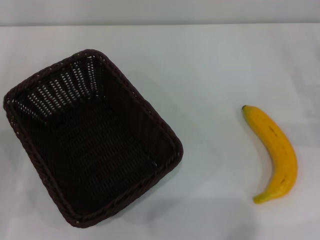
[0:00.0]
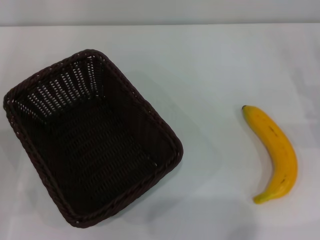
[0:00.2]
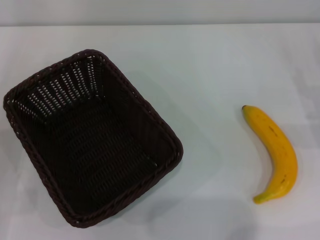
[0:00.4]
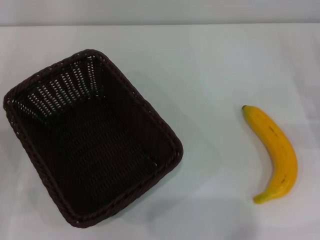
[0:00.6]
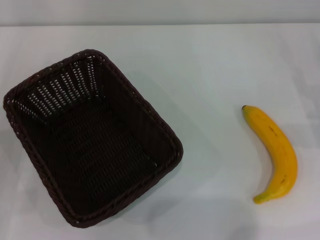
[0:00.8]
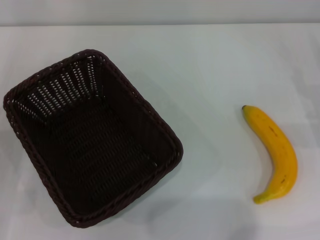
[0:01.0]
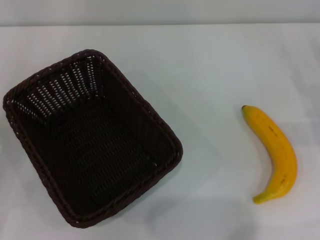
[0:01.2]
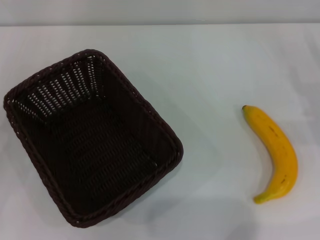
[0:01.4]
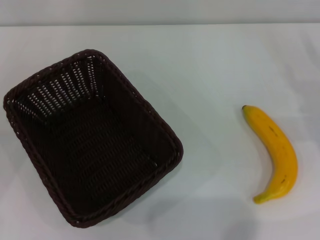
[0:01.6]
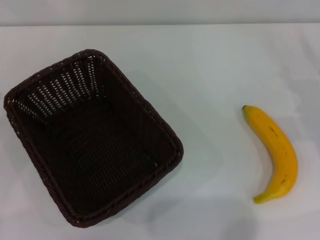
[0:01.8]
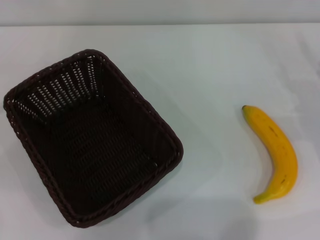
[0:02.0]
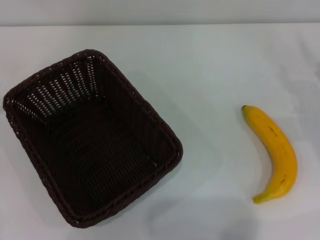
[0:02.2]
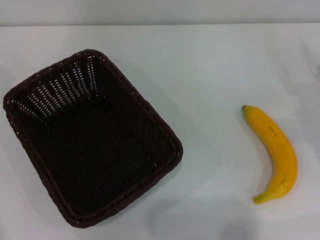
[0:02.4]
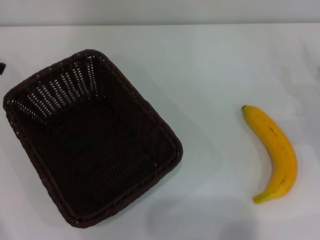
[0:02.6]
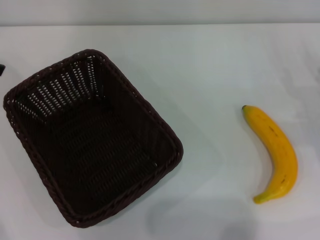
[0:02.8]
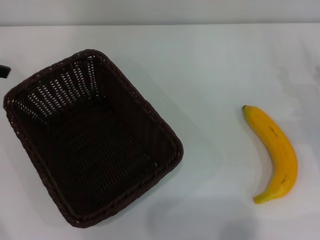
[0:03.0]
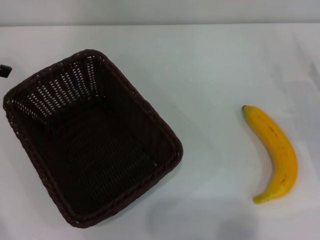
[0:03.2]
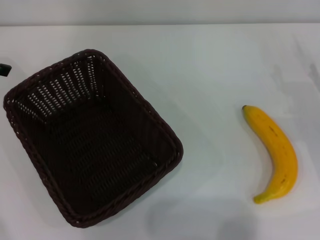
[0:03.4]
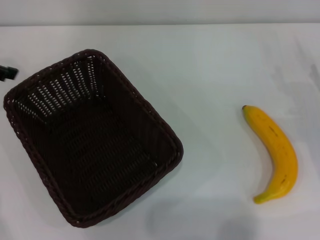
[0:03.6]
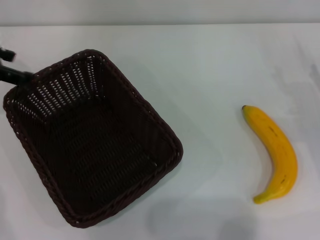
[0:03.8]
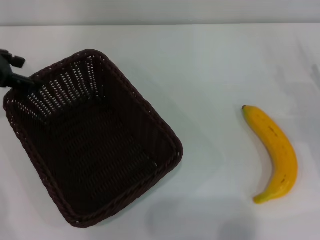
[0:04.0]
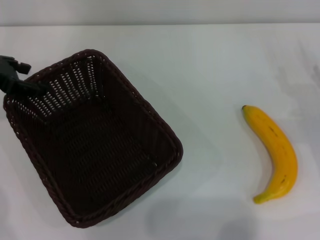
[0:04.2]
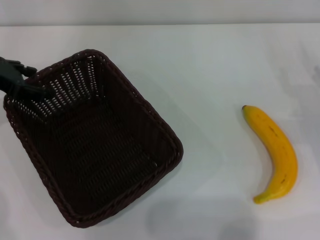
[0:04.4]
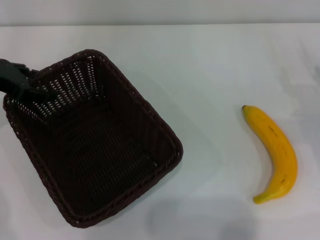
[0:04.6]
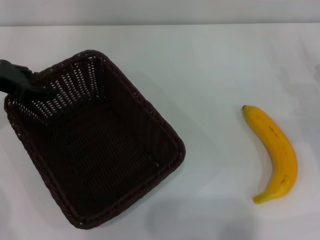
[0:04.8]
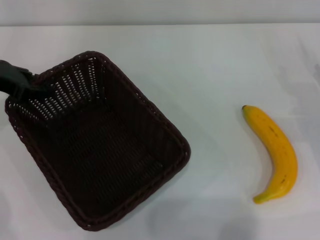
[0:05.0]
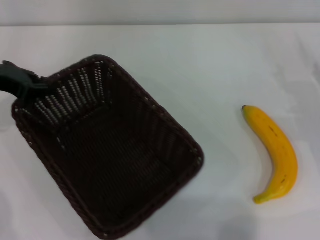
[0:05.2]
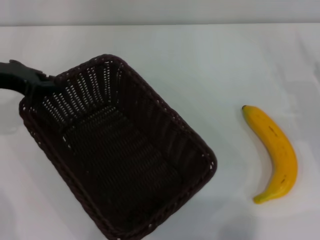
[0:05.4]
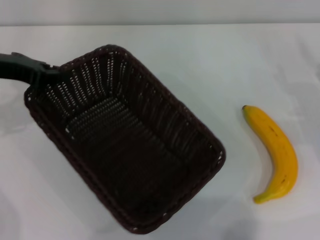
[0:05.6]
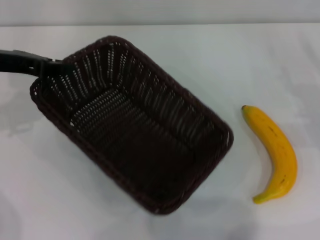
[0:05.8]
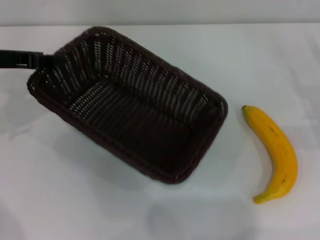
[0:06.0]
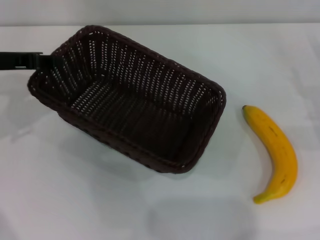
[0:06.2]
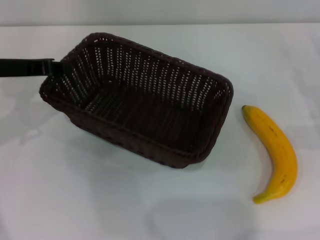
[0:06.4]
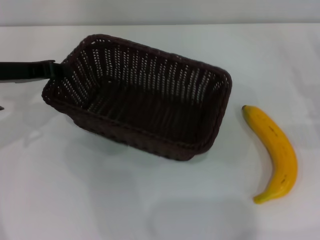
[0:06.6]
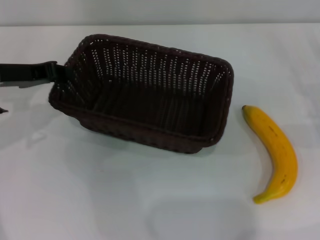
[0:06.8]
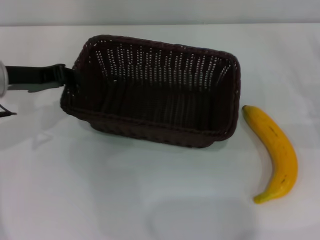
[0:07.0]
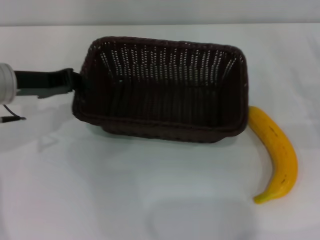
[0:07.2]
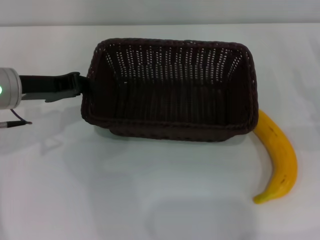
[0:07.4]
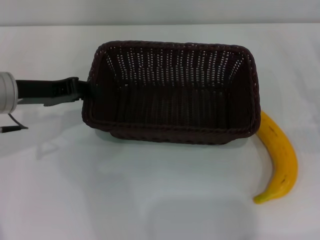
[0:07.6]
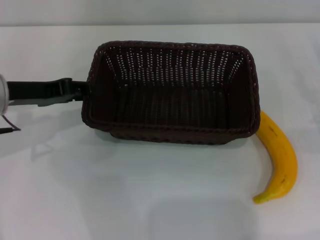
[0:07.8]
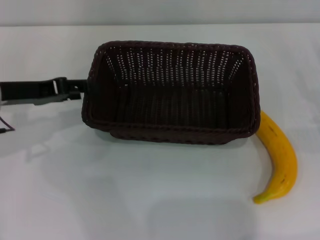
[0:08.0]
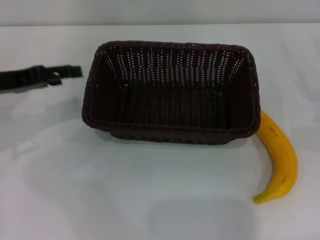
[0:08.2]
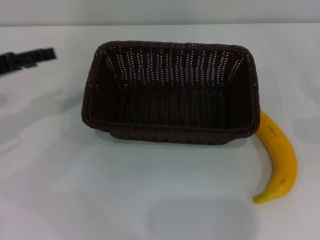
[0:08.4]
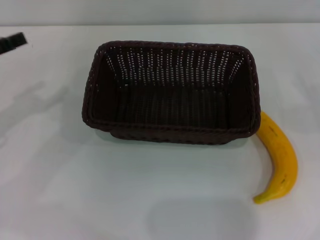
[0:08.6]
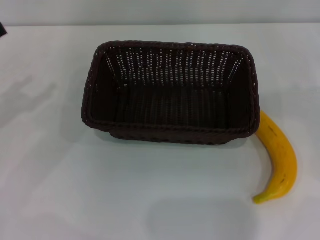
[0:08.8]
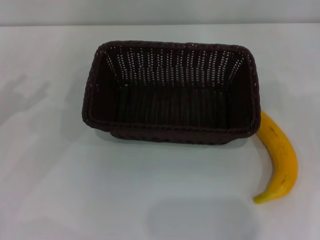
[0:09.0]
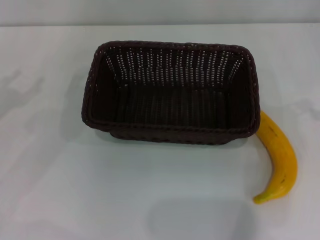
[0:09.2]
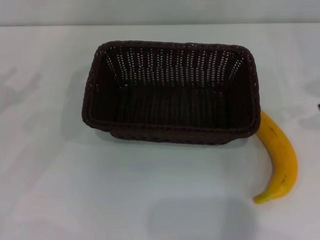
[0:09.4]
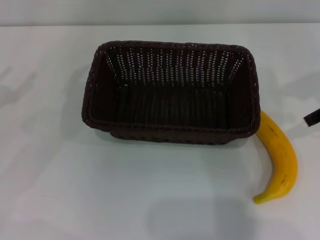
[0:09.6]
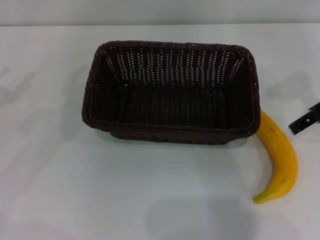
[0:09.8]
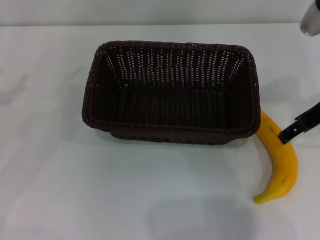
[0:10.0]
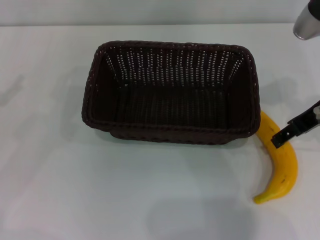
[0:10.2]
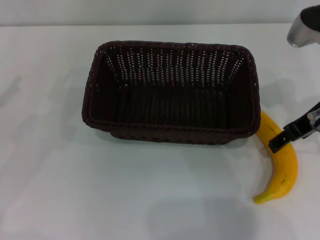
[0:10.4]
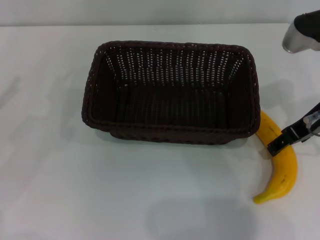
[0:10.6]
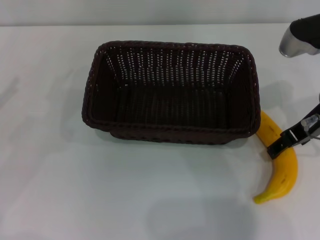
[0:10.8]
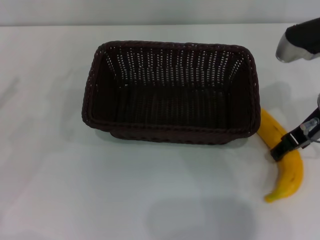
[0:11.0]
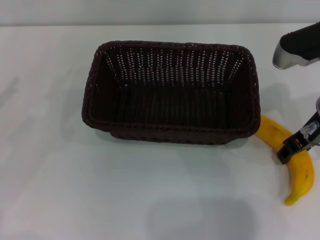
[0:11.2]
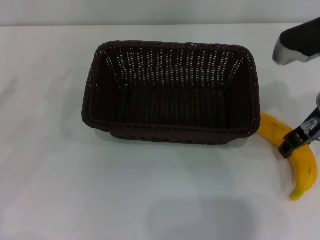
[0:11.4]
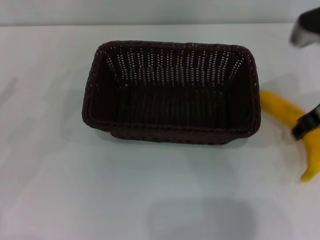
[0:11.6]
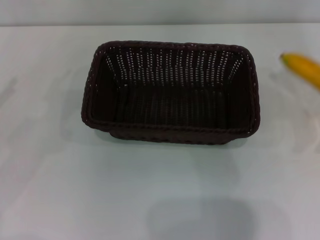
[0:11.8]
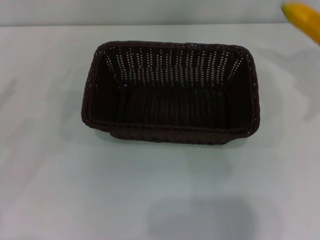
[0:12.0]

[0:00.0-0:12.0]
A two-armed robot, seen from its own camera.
Step, 0.0 to 5.2 s: Pick up the dark basket with the left gripper.
Step, 5.6 to 8.0 s: Place the dark basket in the center of view with the left gripper.
Step, 8.2 to 11.8 s: Pick up the banana with the right gripper.
3.0 to 4.4 s: The left gripper is displaced downward by about 5 cm.
4.4 to 6.0 s: The left gripper closes its fingers.
6.0 to 7.6 s: The left gripper ends up about 5 cm from where it was.
7.6 to 9.0 s: The left gripper moves to the left, roughly 10 cm, and opens.
9.0 to 10.4 s: The right gripper moves to the left, roughly 15 cm.
10.4 to 12.0 s: The right gripper heads upward and to the right, covering about 10 cm, and closes its fingers.

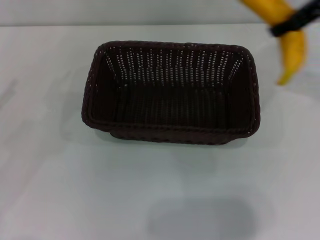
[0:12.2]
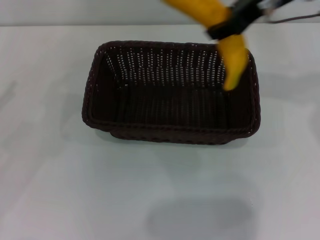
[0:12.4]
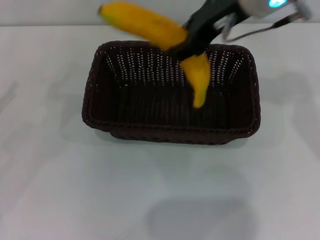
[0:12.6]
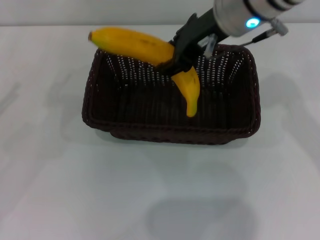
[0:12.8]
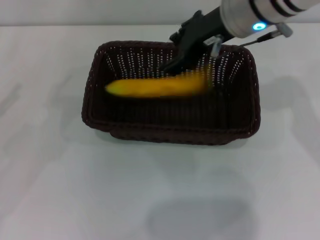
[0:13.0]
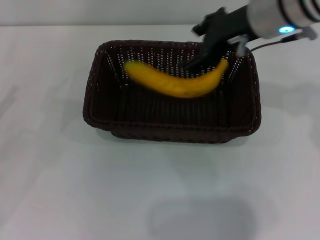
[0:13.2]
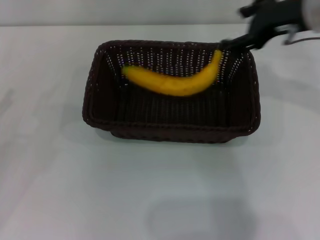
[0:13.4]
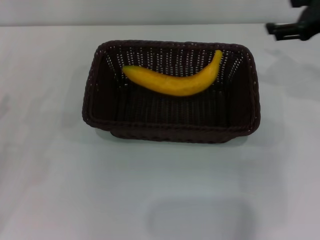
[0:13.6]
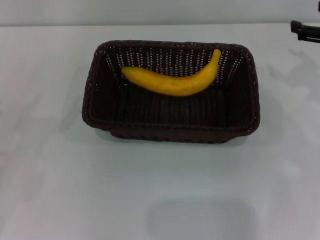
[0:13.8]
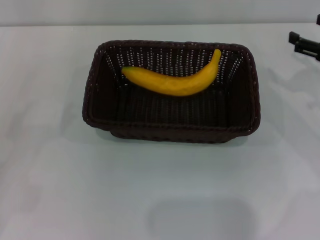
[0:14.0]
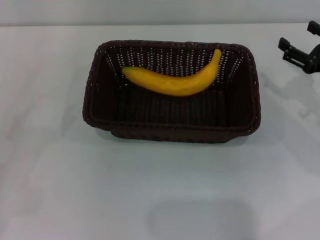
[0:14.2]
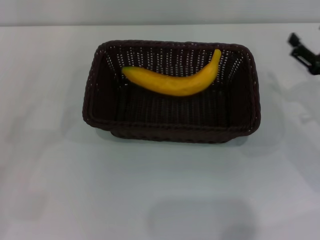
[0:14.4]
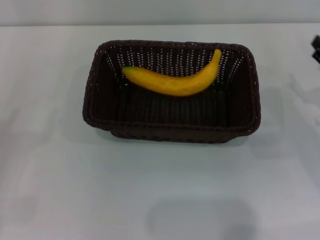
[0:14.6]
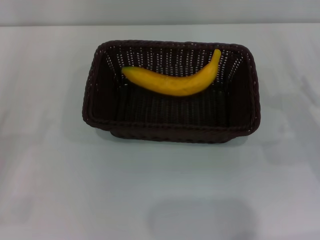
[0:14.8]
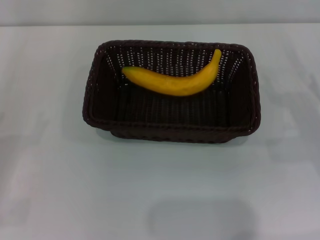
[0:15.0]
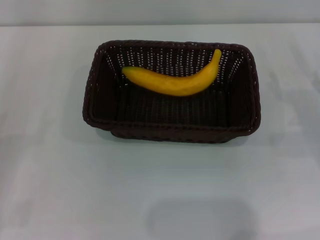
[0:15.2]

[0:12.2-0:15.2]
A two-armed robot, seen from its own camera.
Step, 12.2 to 13.2 s: Place the banana into the dark basket with the right gripper.
12.2 to 13.8 s: The left gripper goes some 10 cm downward and backward. Meanwhile the right gripper moves downward and to the right, about 15 cm, and opens its fingers.
13.8 to 15.2 s: The right gripper shifts about 15 cm downward and backward.

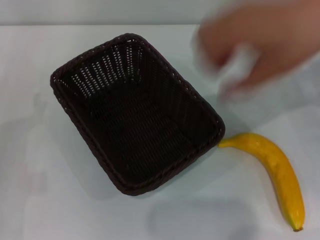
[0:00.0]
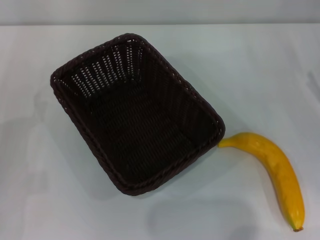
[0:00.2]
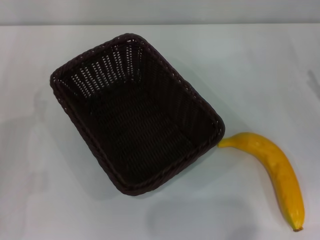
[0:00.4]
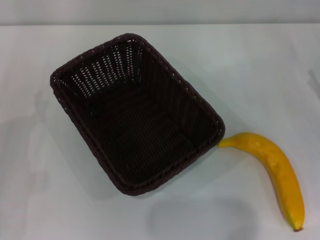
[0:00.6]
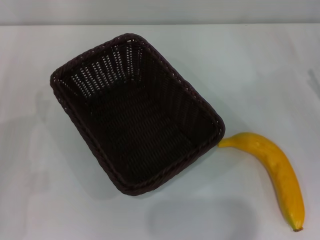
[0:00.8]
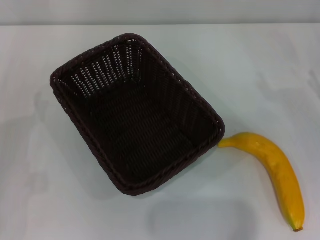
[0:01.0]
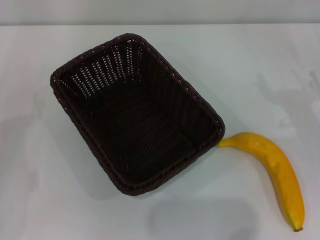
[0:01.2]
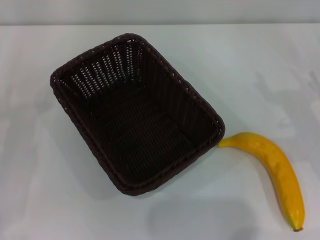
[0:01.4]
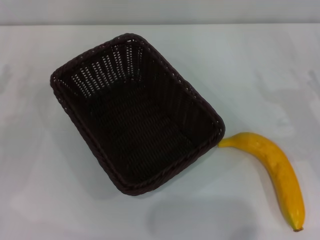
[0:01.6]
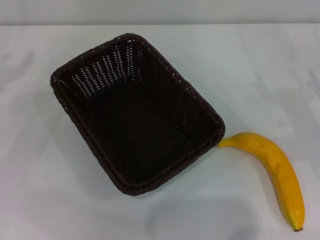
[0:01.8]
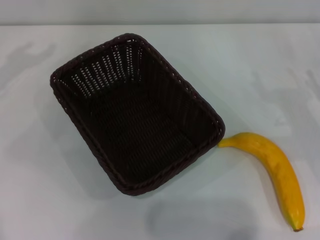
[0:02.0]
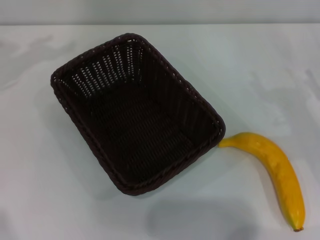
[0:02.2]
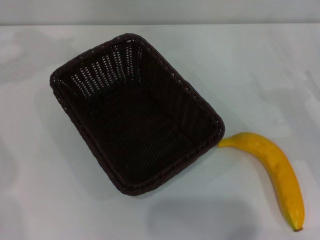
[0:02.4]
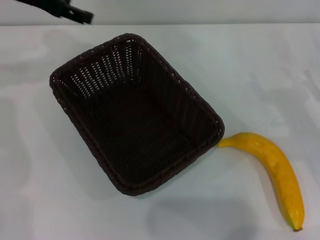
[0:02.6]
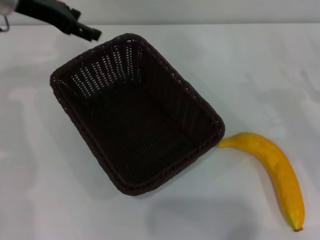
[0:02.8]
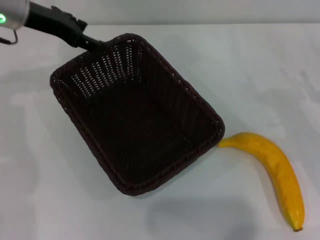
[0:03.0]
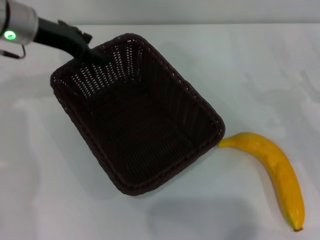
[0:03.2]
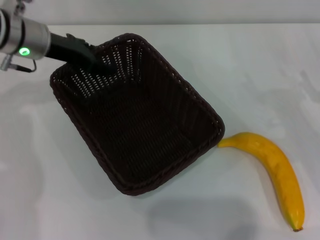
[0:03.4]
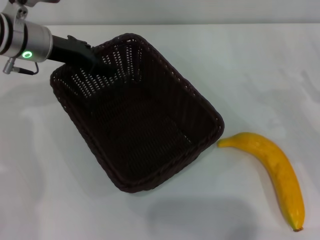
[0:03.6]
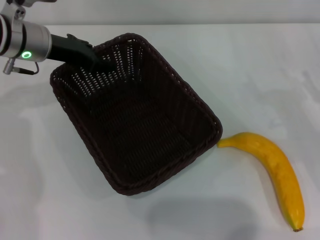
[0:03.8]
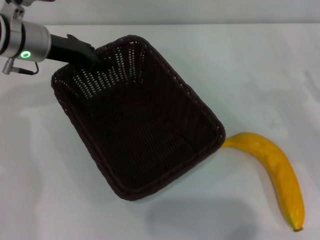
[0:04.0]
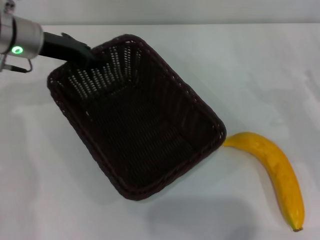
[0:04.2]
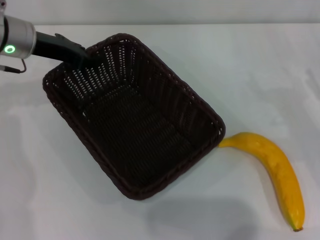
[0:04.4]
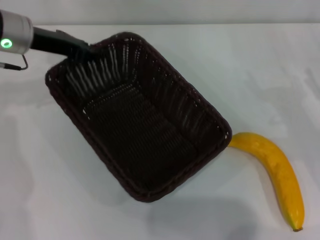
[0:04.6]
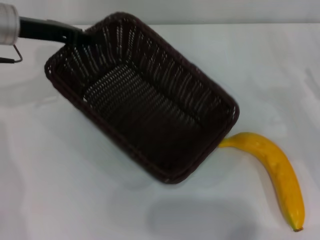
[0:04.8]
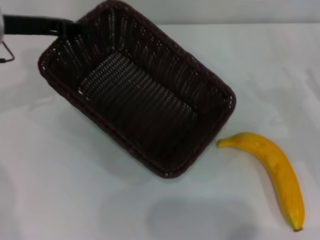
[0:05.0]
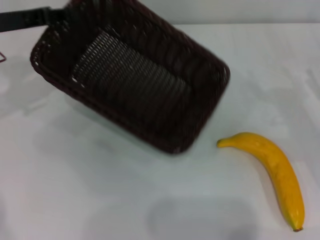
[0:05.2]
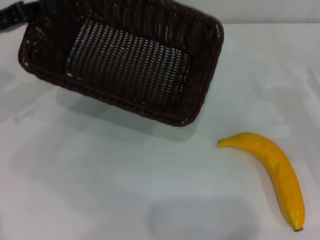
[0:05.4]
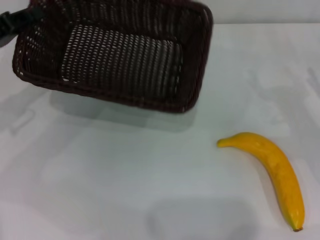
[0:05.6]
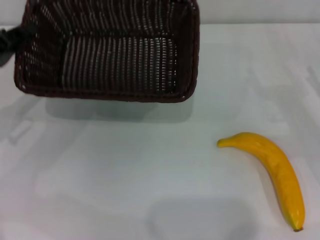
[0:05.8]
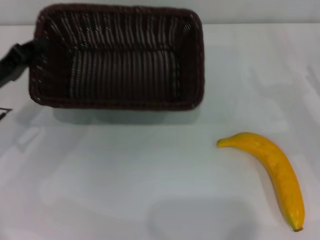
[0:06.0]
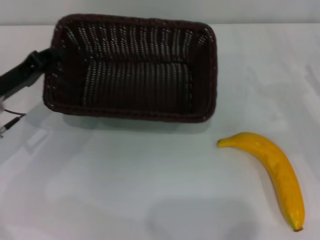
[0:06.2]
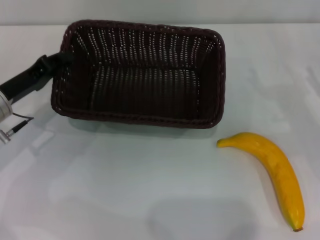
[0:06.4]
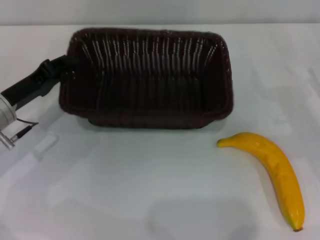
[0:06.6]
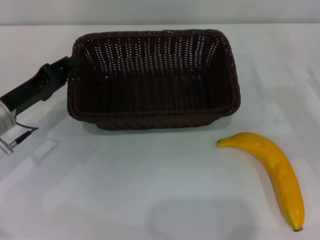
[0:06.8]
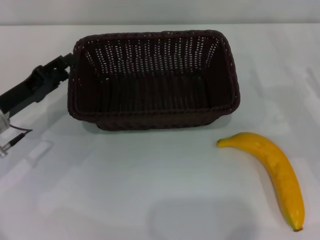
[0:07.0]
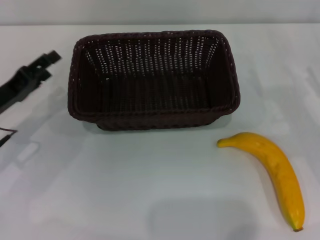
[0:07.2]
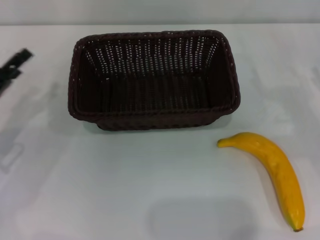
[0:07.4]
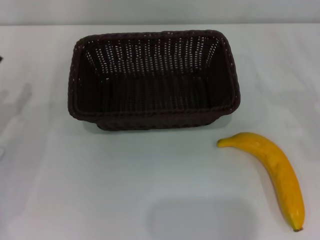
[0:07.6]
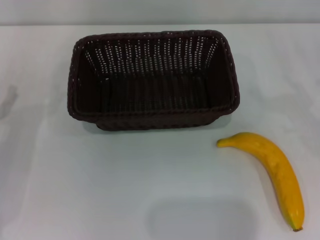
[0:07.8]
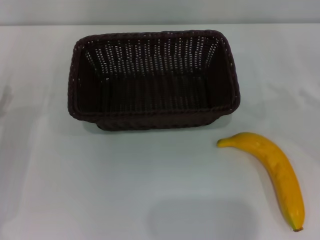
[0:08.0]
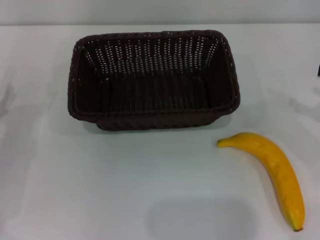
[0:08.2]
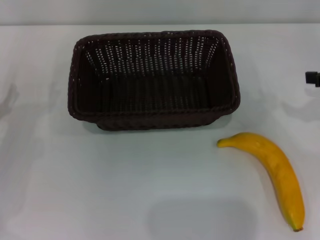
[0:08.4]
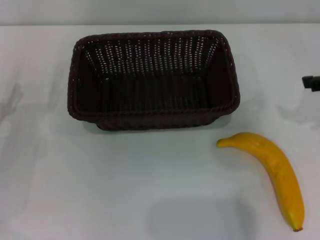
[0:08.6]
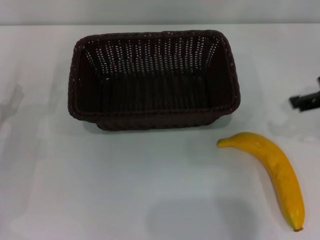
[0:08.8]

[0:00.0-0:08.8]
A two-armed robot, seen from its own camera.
Step, 0.0 to 4.6 s: Pick up the dark basket with the left gripper.
Step, 4.8 to 7.2 s: Place the dark basket in the center of view with the left gripper.
0.0 to 1.4 s: The grippers move only a little.
1.4 to 3.0 s: The left gripper heads forward, upward and to the right, covering approximately 25 cm.
3.0 to 4.4 s: The left gripper closes its fingers.
4.4 to 5.8 s: The left gripper travels backward, to the left and downward by roughly 15 cm.
5.8 to 7.4 s: The left gripper is displaced backward by roughly 5 cm, and opens its fingers.
7.4 to 8.8 s: The right gripper shifts approximately 20 cm upward and to the left.
